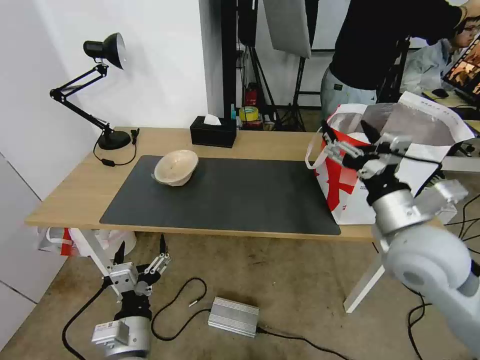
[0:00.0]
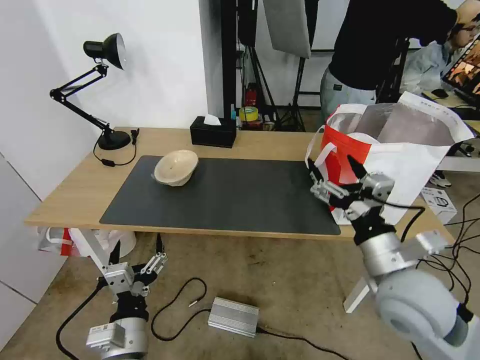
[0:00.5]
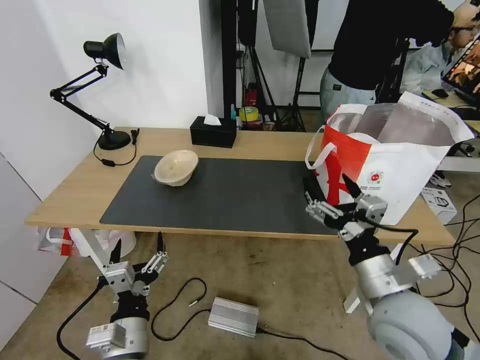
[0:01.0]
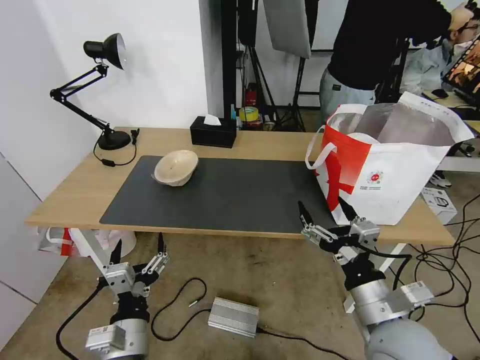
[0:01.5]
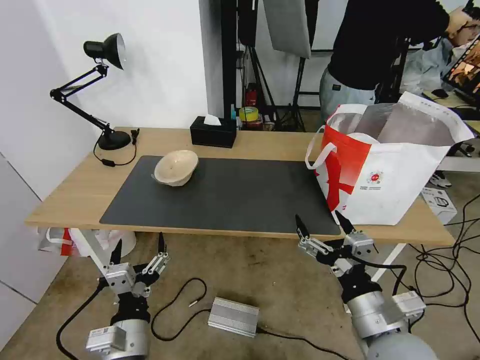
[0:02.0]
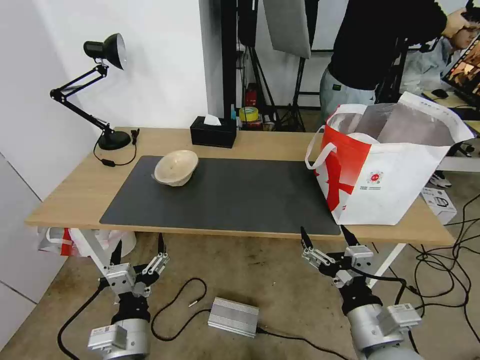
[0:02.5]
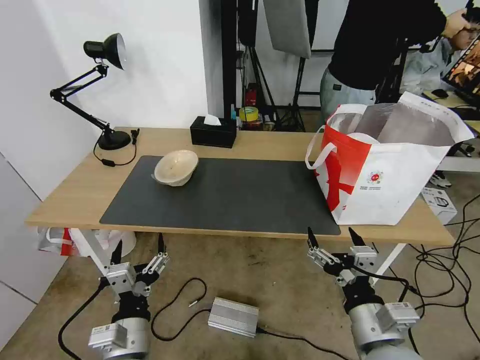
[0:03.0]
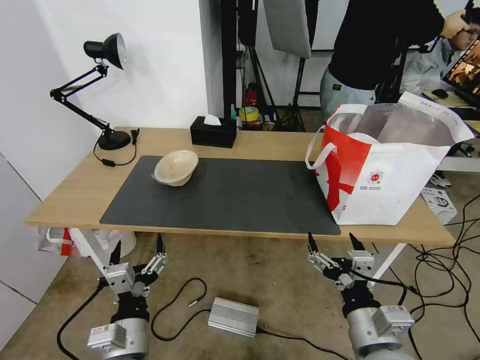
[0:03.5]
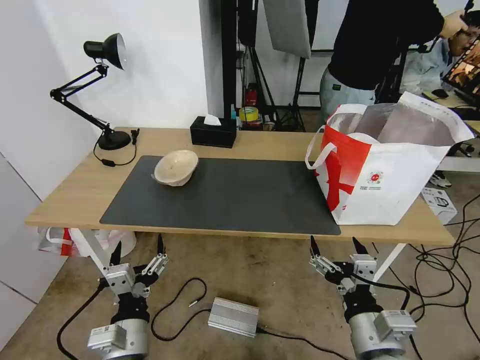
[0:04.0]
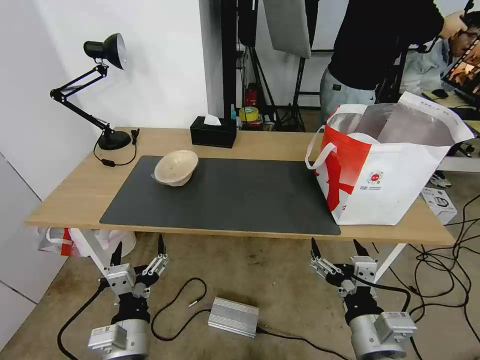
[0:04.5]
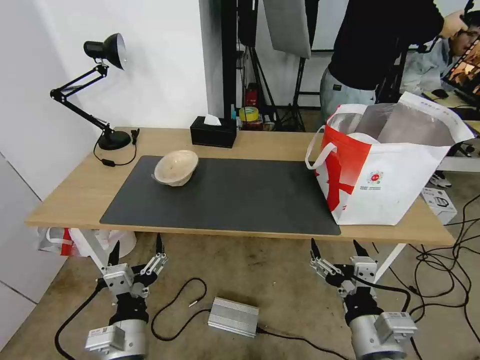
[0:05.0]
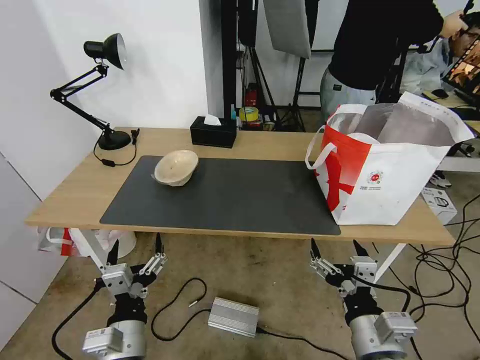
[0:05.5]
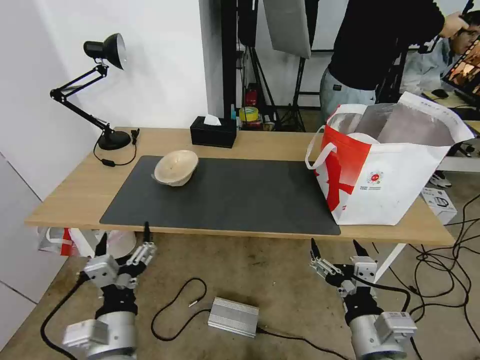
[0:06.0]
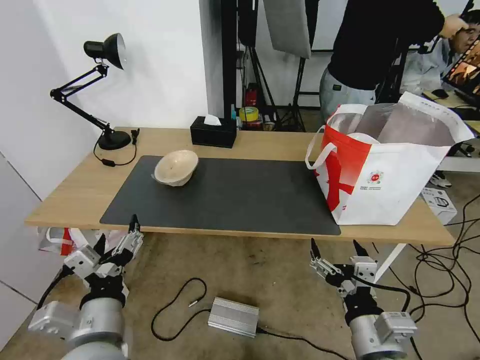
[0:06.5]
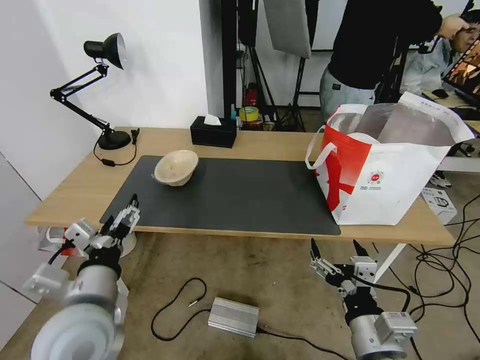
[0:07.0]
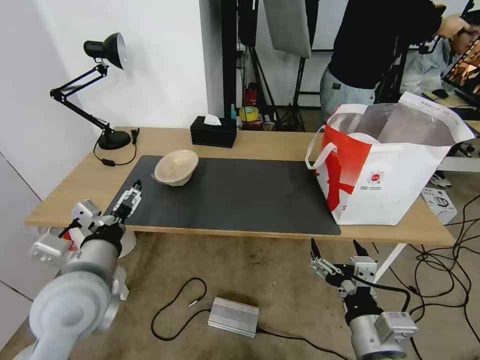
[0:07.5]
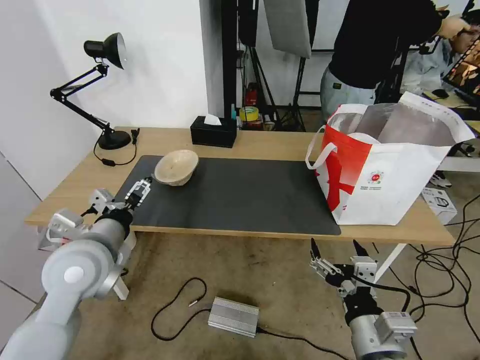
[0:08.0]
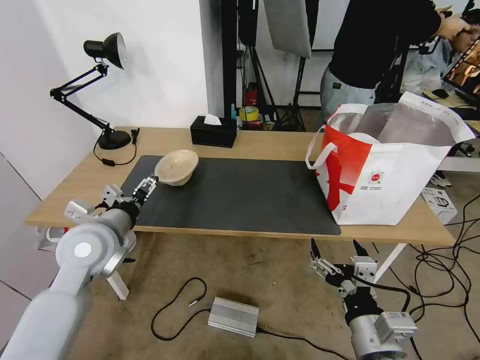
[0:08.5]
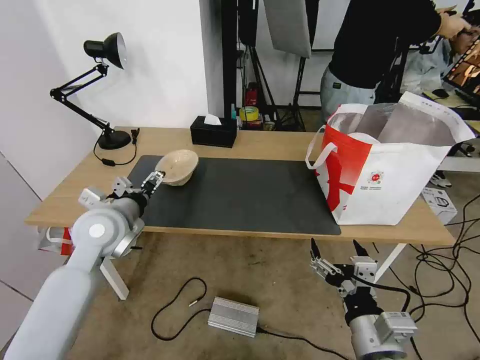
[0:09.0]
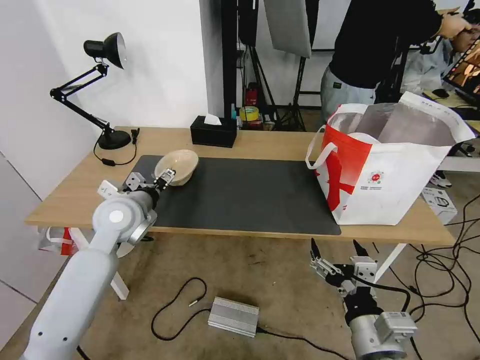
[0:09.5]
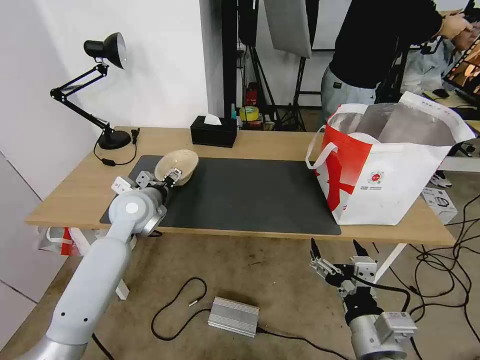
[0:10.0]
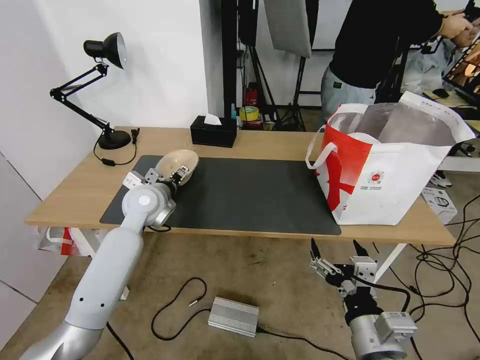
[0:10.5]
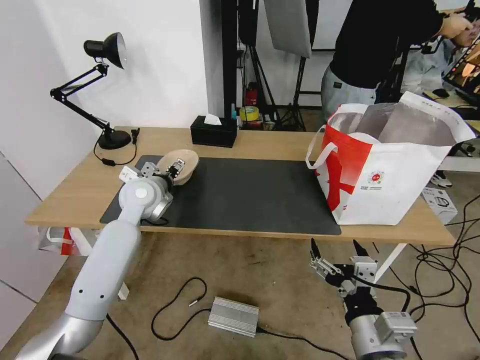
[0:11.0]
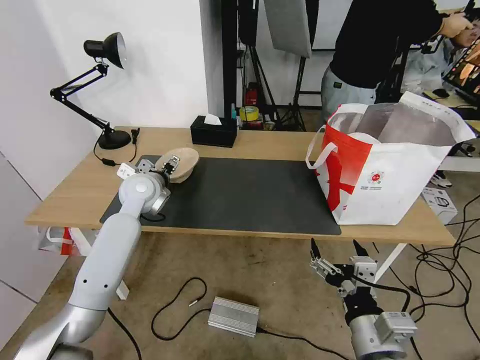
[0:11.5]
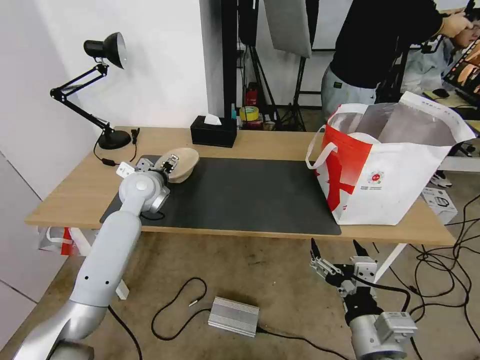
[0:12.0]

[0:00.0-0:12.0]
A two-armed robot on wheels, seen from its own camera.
Task of the whole recording: Pick up the trash from the table and place it into the takeout bag.
0:00.0 to 0:02.0: The right gripper moves backward and downward, about 15 cm.
0:02.0 to 0:06.0: The grippers stay close to where they were, moving slightly.
0:06.0 to 0:08.0: The left gripper shifts about 20 cm forward, upward and to the left.
0:08.0 to 0:10.0: The left gripper shifts about 15 cm forward.
0:10.0 to 0:12.0: The left gripper is displaced forward by some 5 cm.

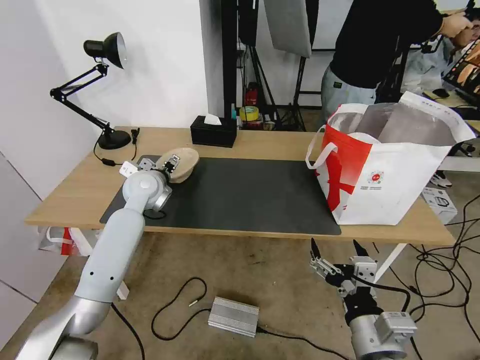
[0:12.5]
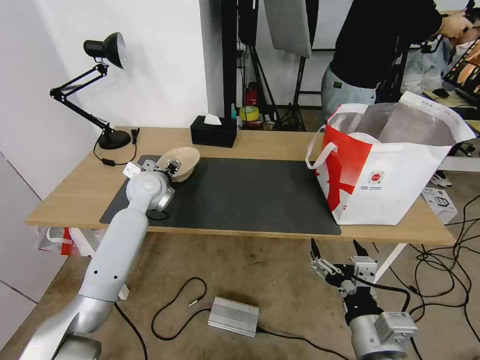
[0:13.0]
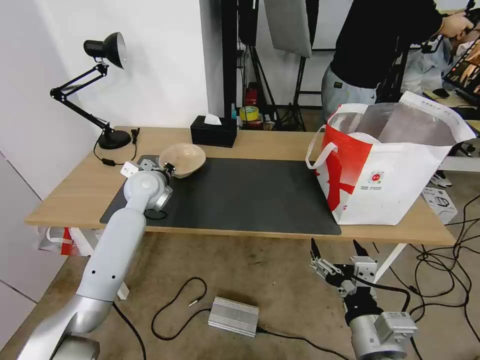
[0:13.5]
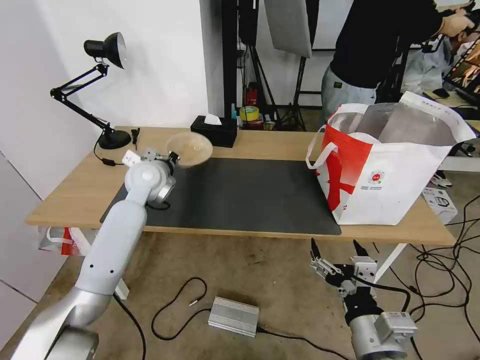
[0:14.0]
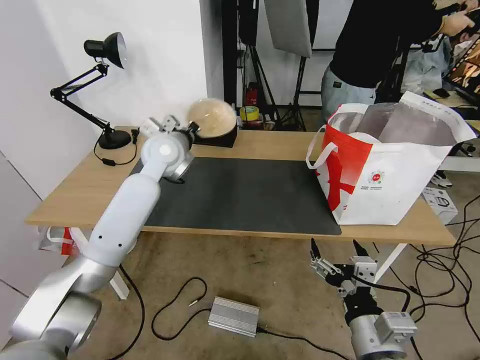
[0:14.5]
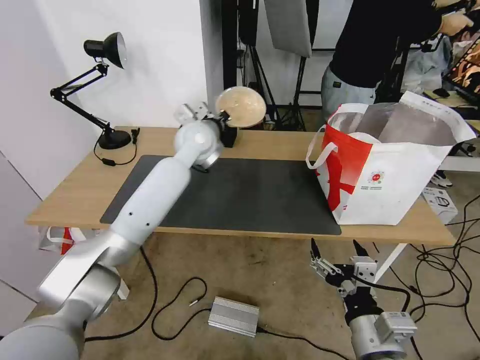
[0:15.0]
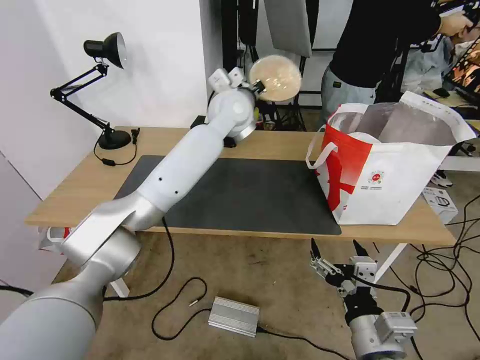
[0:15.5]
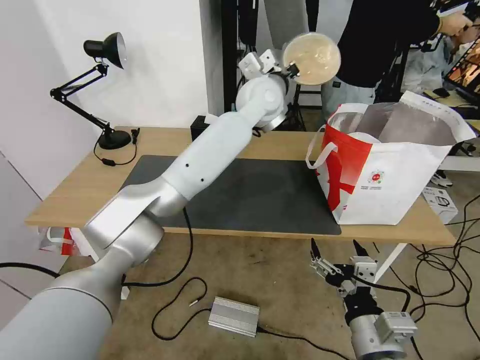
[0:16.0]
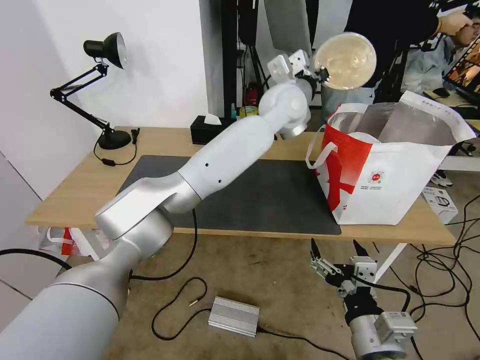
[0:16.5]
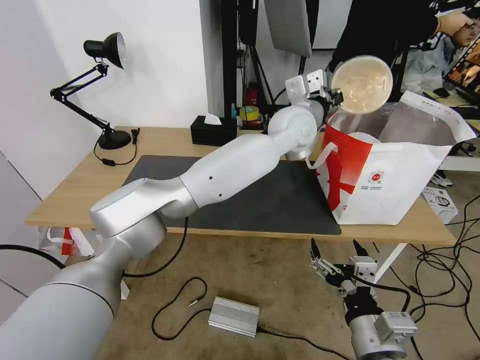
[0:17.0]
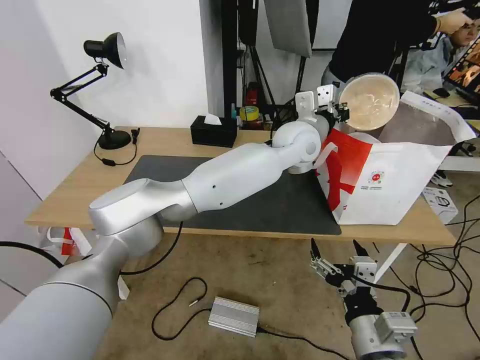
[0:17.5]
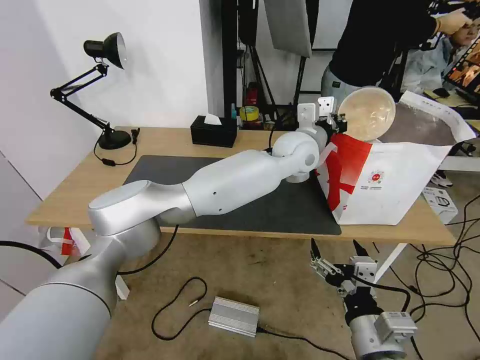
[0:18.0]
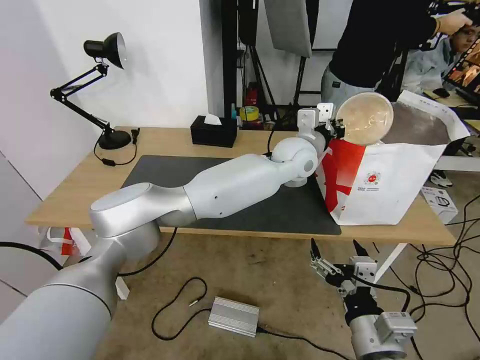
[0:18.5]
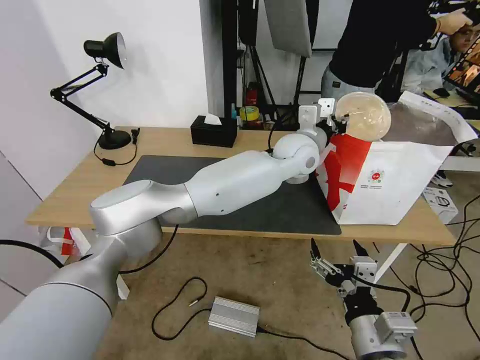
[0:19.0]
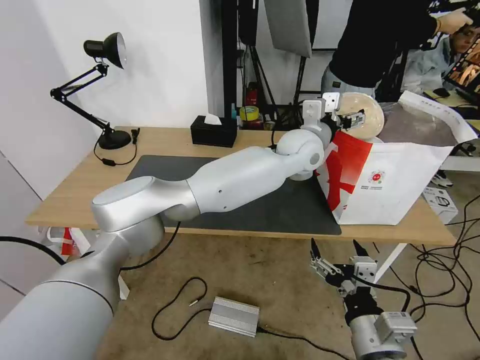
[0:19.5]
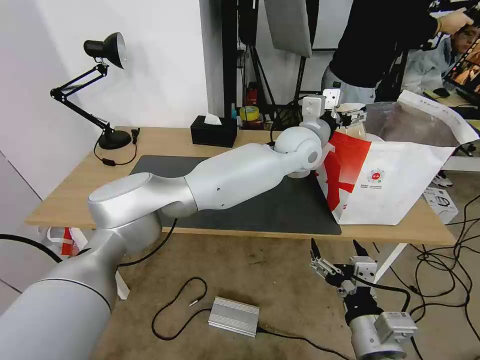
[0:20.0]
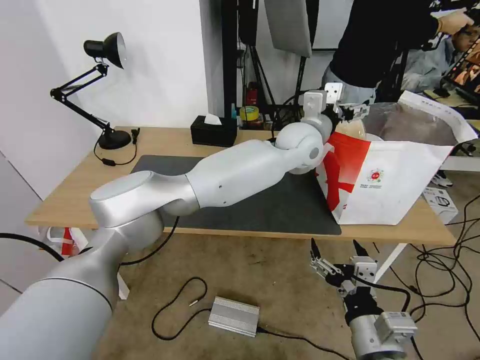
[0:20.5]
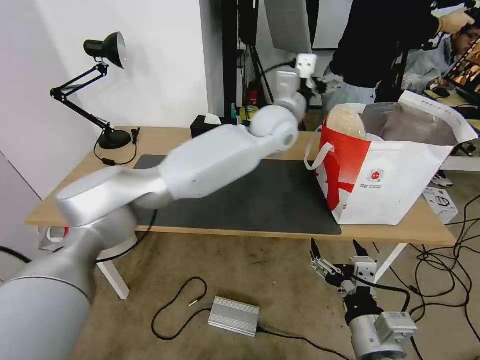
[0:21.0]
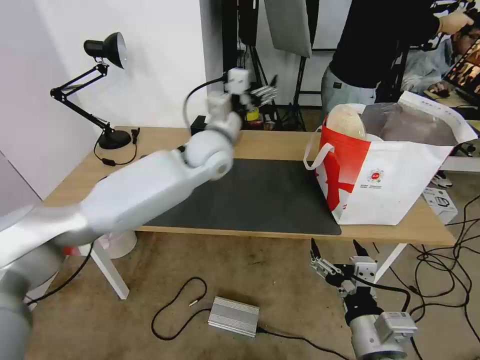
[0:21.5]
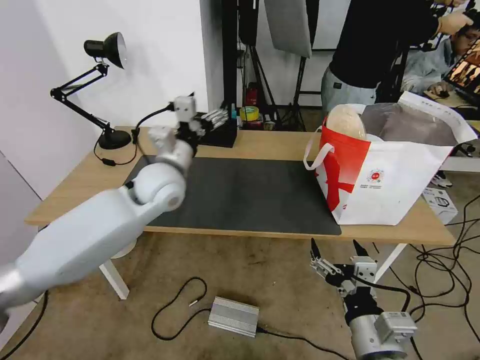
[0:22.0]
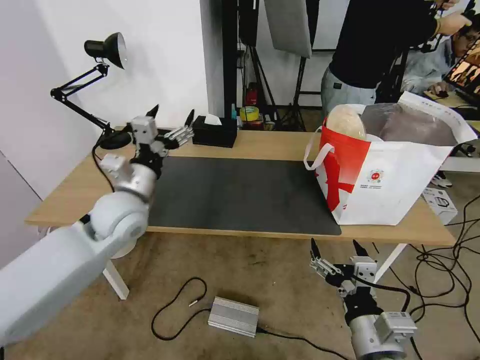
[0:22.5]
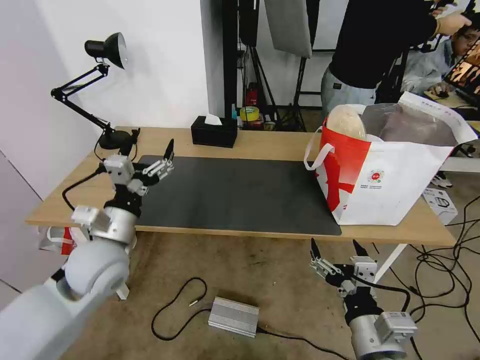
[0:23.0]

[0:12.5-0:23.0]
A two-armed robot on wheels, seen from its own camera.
Task of the whole recording: Pick up the trash from the table and place it into the takeout bag.
0:12.5 to 0:14.5: The left gripper heads upward and to the right, covering about 10 cm, and closes its fingers.
0:14.5 to 0:16.5: The left gripper is displaced to the right by about 25 cm.
0:16.5 to 0:19.0: The left gripper travels downward by roughly 10 cm, and opens up.
0:19.0 to 0:21.0: The left gripper moves some 5 cm, and opens up.
0:21.0 to 0:23.0: The left gripper travels to the left, backward and downward by about 40 cm.

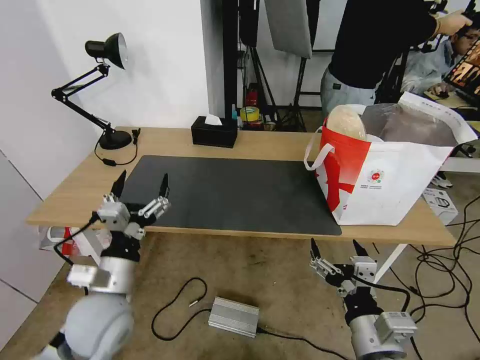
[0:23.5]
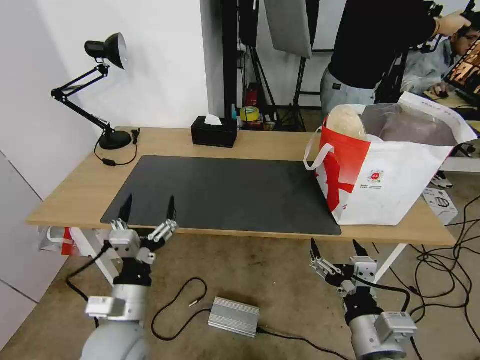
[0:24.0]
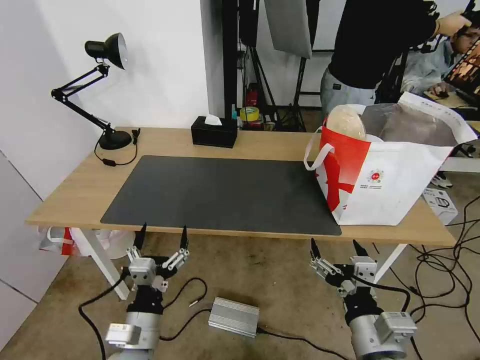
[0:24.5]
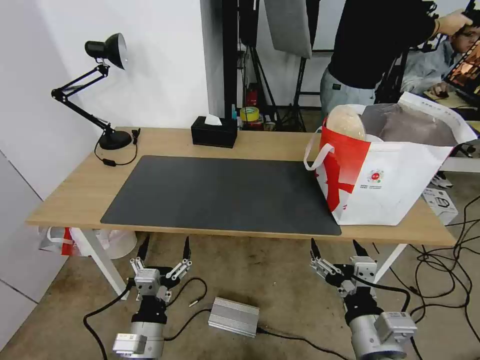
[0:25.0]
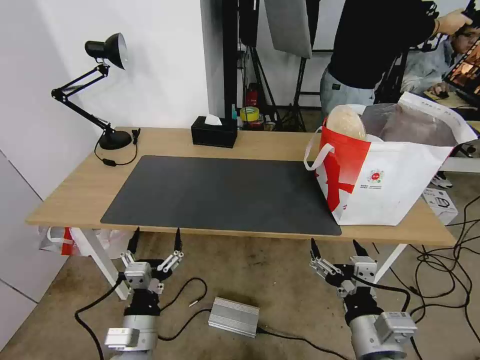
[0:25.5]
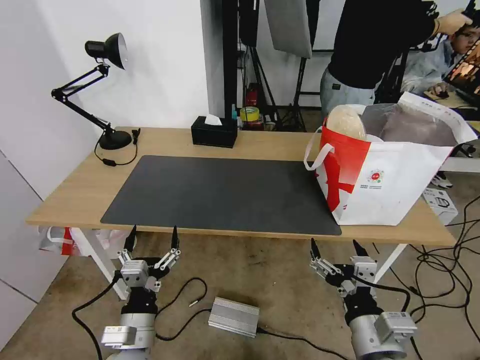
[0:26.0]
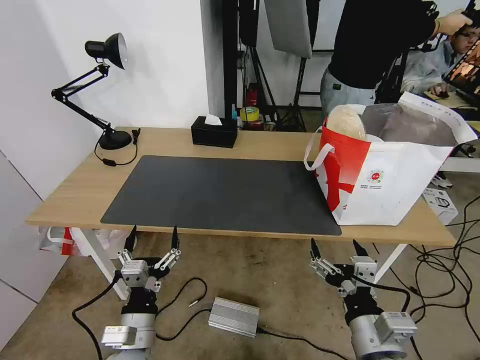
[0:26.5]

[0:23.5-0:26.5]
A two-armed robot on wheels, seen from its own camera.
Task of the whole recording: Pick up the trash from the table and place it into the takeout bag.
0:23.5 to 0:25.0: The left gripper is displaced downward, backward and to the right by approximately 15 cm.
0:25.0 to 0:26.5: The grippers stay close to where they were, moving slightly.
